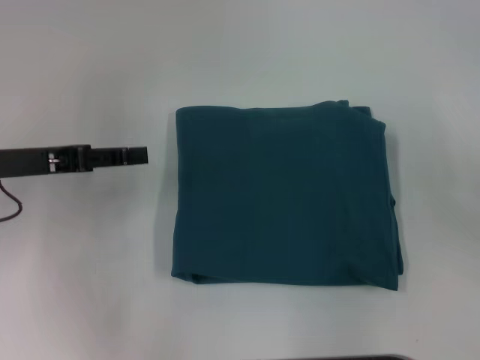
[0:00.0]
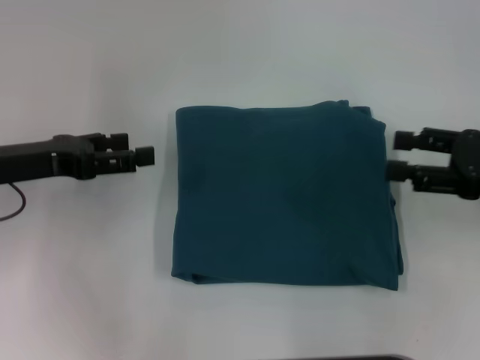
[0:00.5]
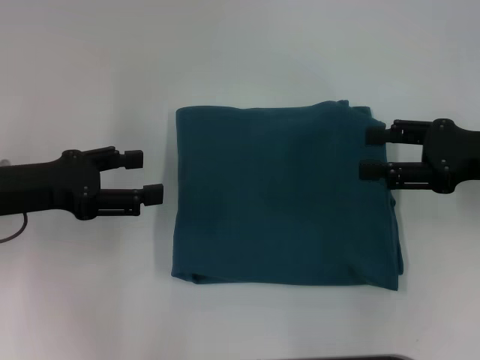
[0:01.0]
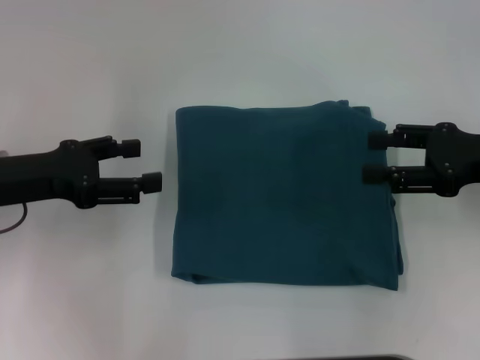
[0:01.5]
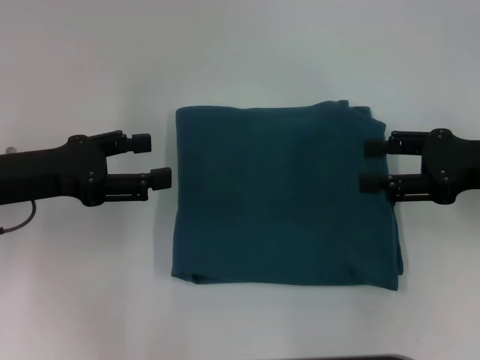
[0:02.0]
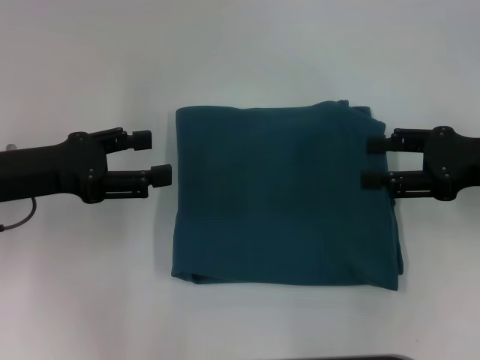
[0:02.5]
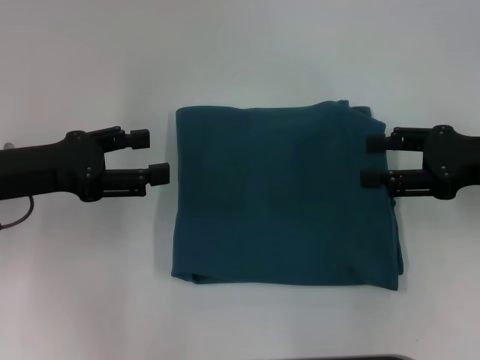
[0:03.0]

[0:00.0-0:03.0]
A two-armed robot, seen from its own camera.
0:00.0 to 0:01.5: The right gripper is displaced to the left and forward by about 10 cm. The left gripper opens its fingers.
0:01.5 to 0:03.0: Both grippers stay about where they are.

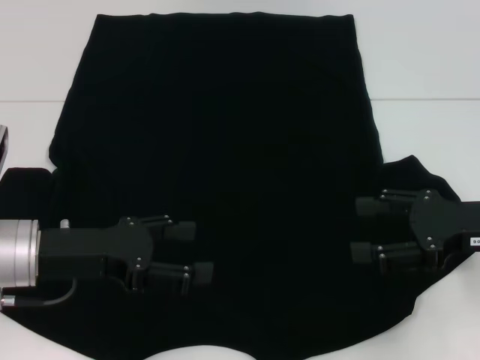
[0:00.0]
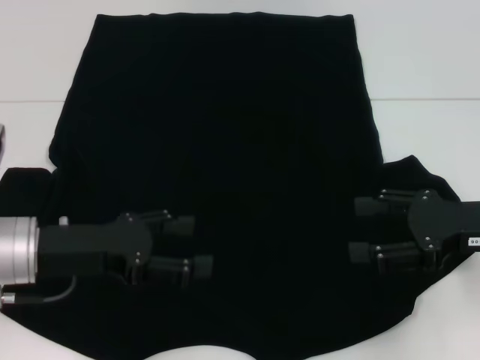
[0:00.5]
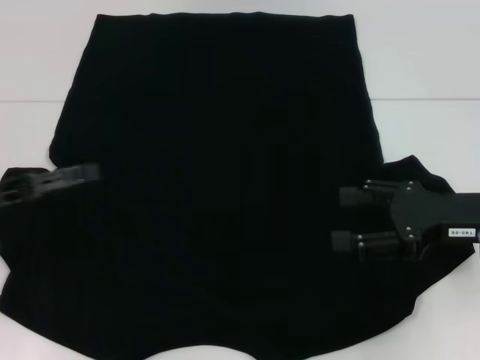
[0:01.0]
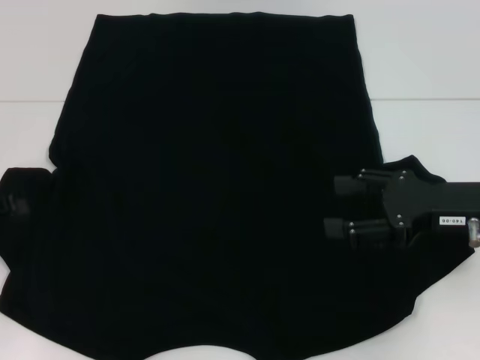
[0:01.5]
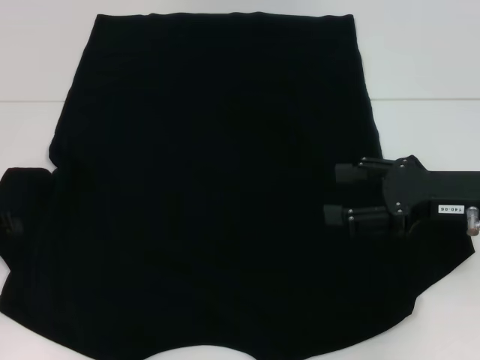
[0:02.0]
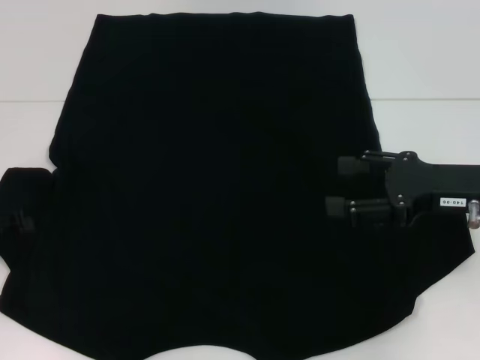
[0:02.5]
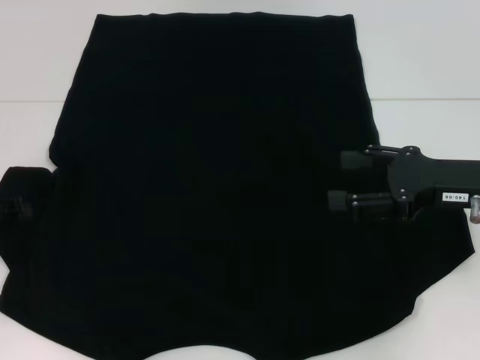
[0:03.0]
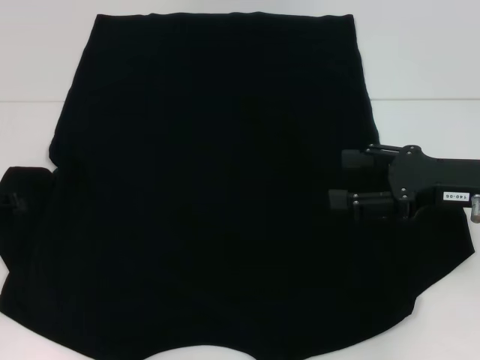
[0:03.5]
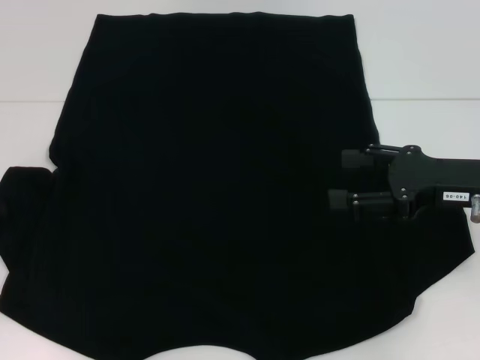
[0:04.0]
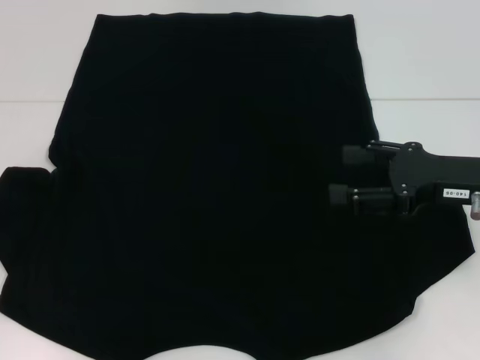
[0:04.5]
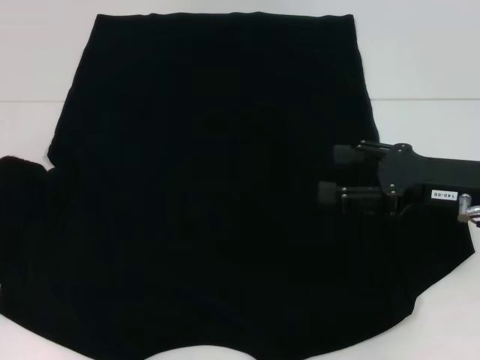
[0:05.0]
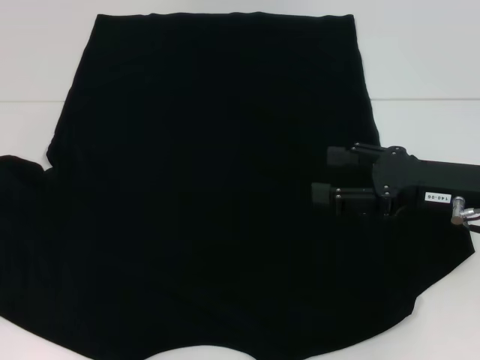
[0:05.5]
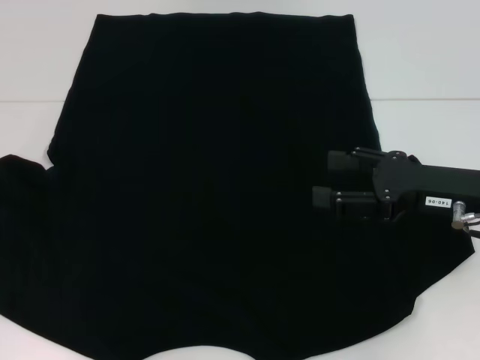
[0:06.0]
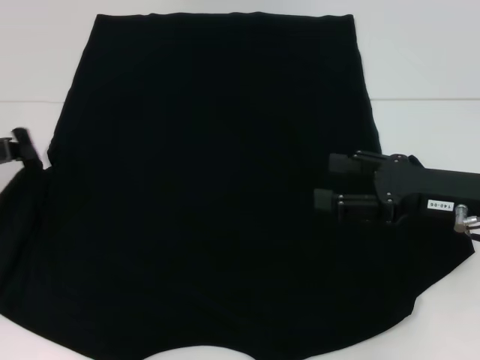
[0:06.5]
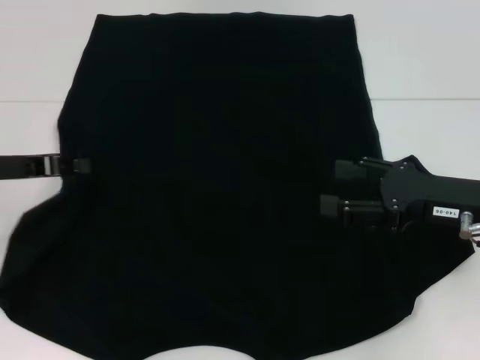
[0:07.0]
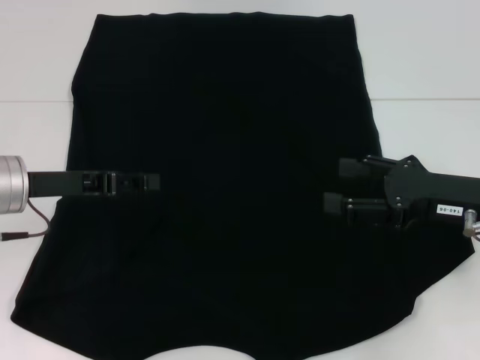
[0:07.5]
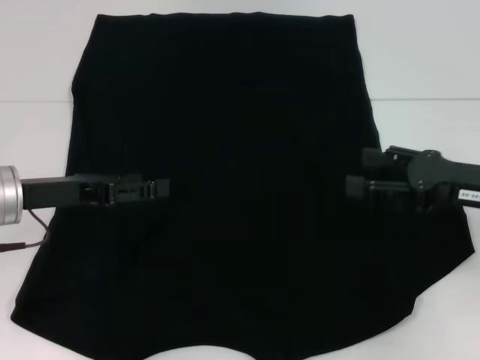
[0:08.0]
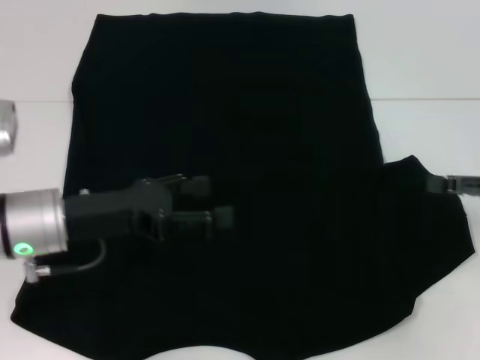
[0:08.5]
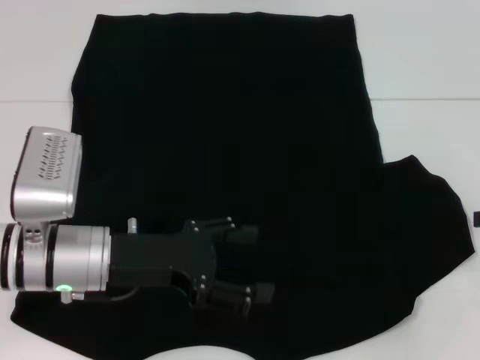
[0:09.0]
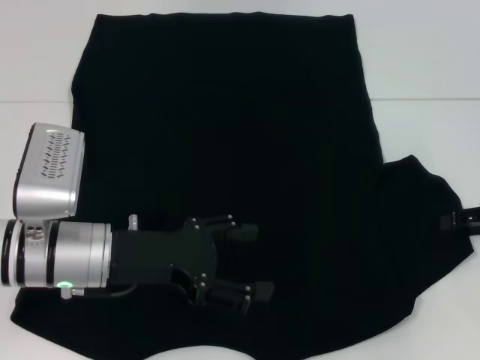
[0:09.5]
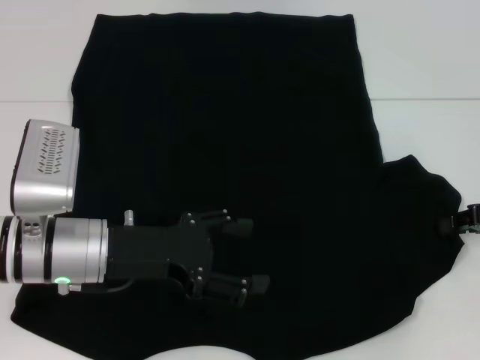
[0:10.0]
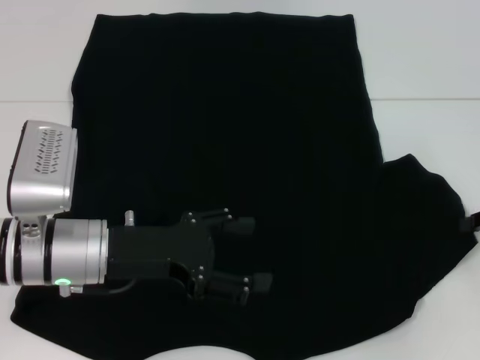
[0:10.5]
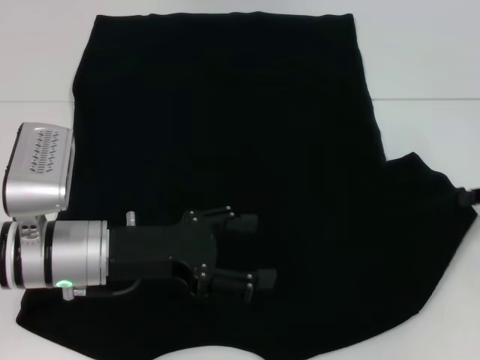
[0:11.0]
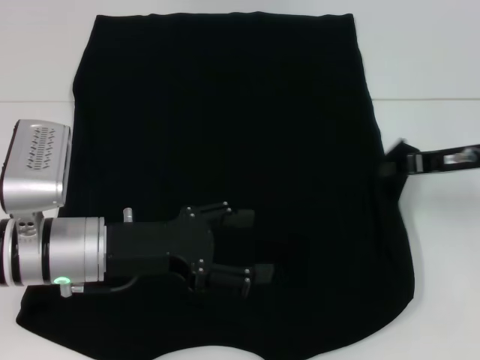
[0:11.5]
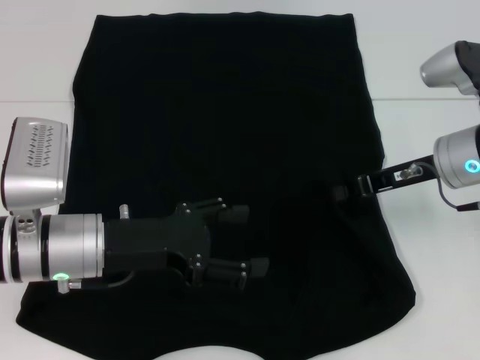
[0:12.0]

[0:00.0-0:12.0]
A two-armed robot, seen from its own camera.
Step, 0:00.0 to 0:07.5: Fold the bottom left sleeve with your left hand.
0:00.0 to 0:02.0: The left gripper goes roughly 15 cm to the left.
0:02.0 to 0:04.0: The grippers make only small movements.
0:04.0 to 0:06.0: The left gripper closes its fingers.
0:06.0 to 0:08.0: The left gripper is displaced to the right by some 10 cm, and opens up.
0:08.0 to 0:10.0: The two grippers go about 5 cm to the right. The right gripper closes.
0:10.0 to 0:12.0: The right gripper is displaced to the left by about 10 cm.

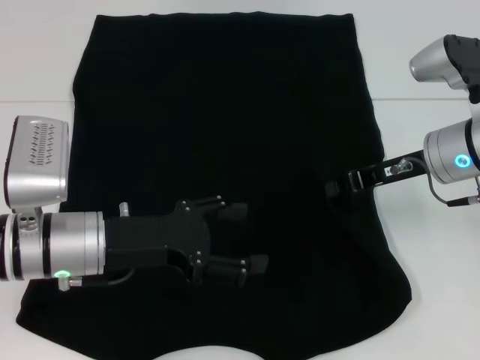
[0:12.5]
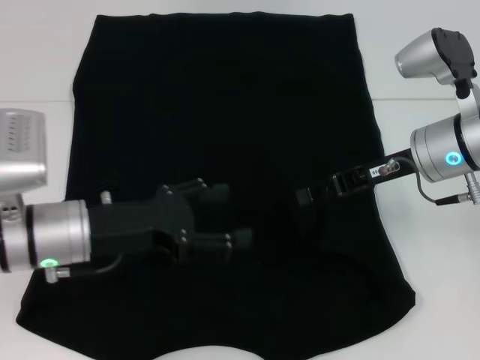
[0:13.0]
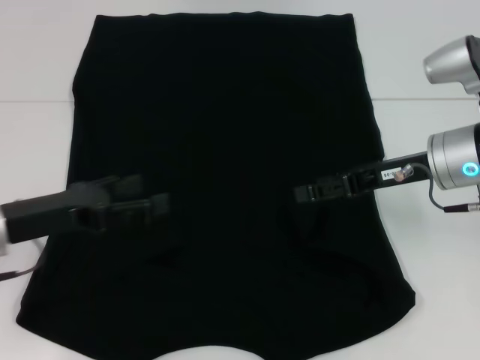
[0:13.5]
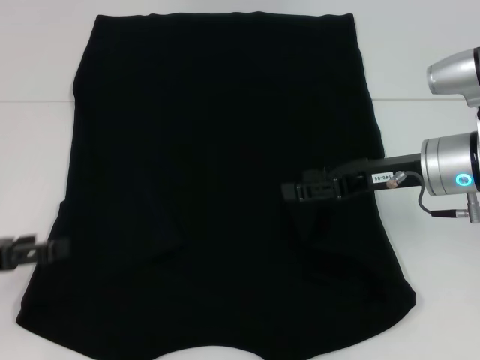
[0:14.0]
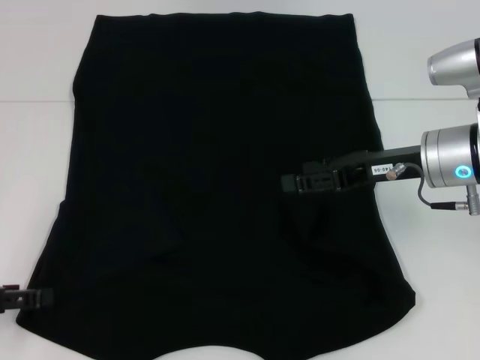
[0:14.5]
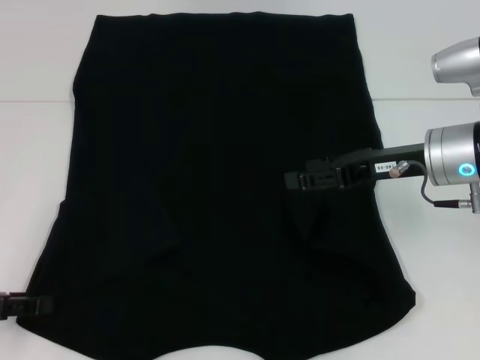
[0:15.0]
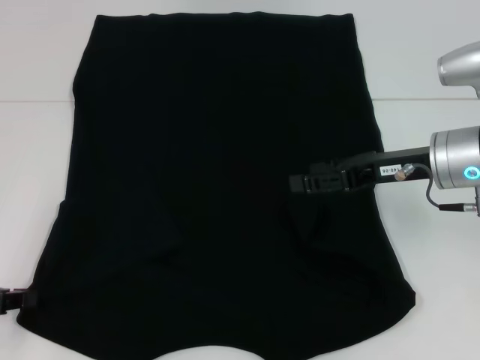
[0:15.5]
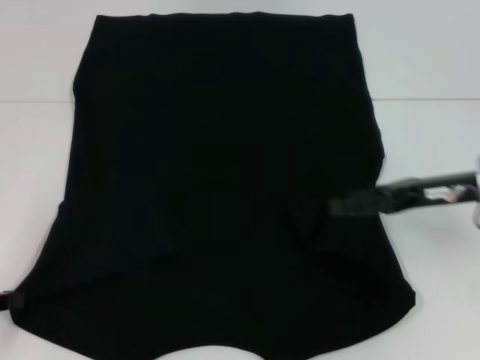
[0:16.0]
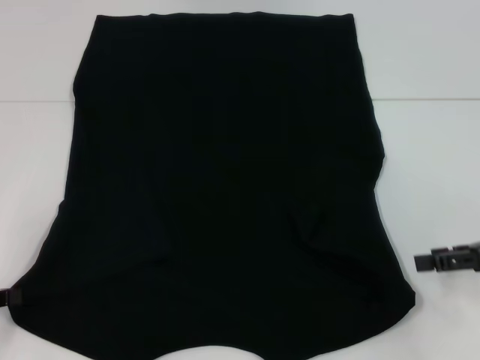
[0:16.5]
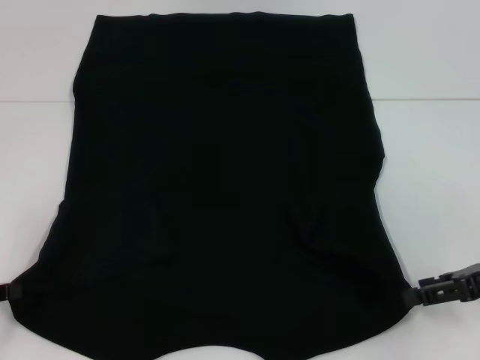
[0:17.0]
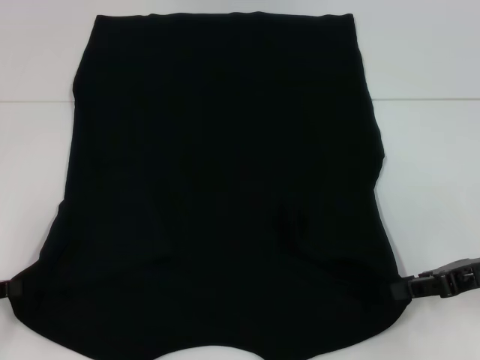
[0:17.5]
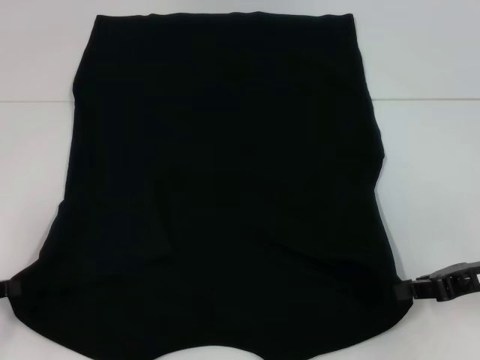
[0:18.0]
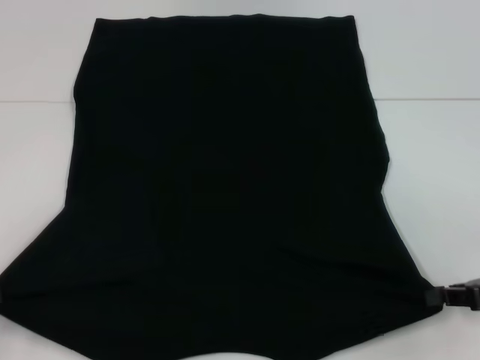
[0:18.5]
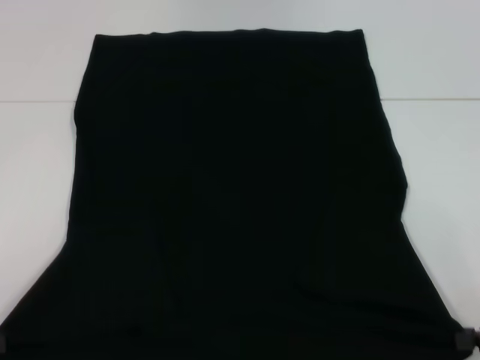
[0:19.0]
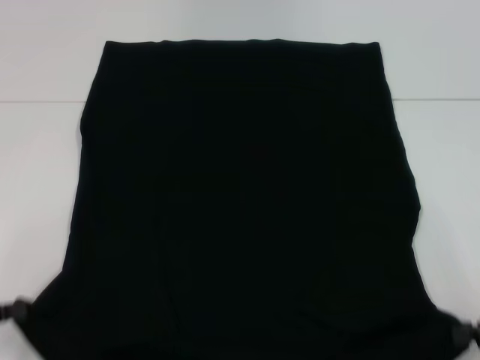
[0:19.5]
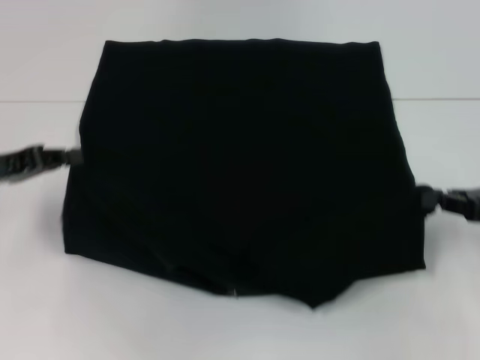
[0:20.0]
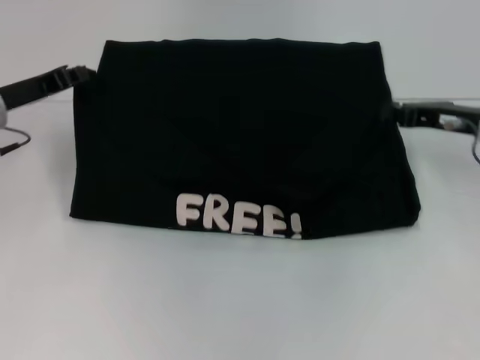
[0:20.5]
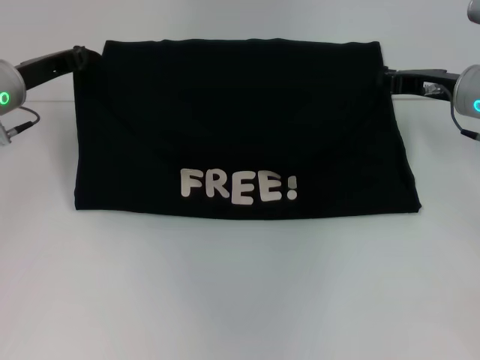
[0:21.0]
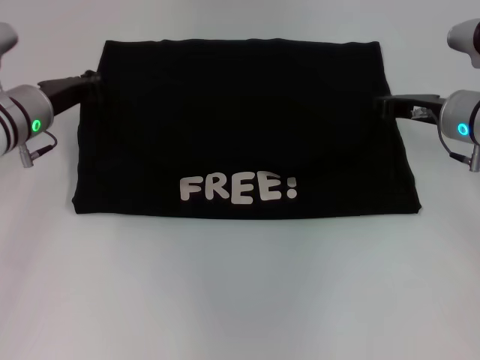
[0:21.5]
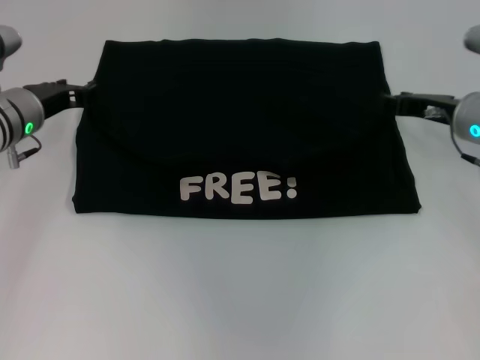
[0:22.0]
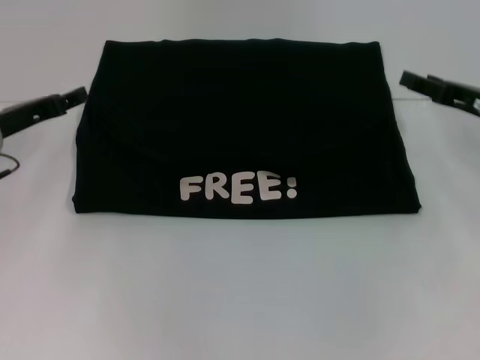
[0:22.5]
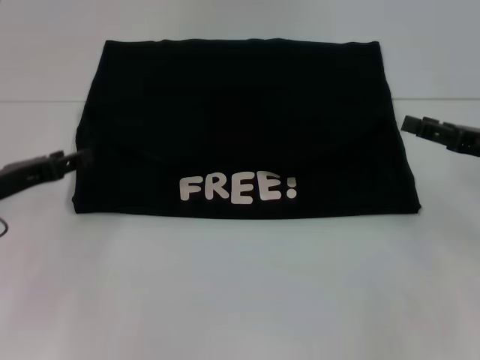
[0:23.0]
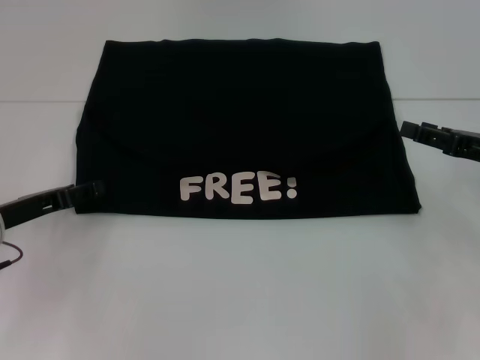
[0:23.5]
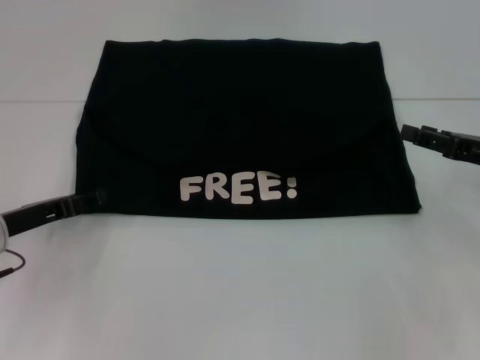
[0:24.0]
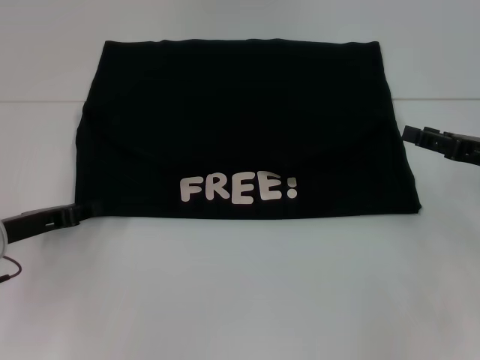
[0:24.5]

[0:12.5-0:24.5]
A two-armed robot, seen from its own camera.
Step, 0:13.0 to 0:16.0: Grab the bottom left corner with your left hand.
Step, 0:16.5 to 0:18.0: Grab the bottom right corner with your right hand.
Step, 0:18.5 to 0:22.0: Fold the clothes with your left hand.
Step, 0:18.5 to 0:22.0: Fold the clothes with your right hand.
0:12.5 to 0:14.5: The right gripper opens. Meanwhile the left gripper goes approximately 15 cm to the left.
0:14.5 to 0:16.5: The left gripper closes its fingers; the right gripper goes some 15 cm to the right and backward.
0:16.5 to 0:18.5: The right gripper closes up.
0:18.5 to 0:20.5: The left gripper shifts approximately 20 cm forward and to the right; the right gripper goes about 15 cm forward and to the left.
0:20.5 to 0:22.5: The left gripper opens. Meanwhile the right gripper opens.
0:22.5 to 0:24.5: The right gripper ends up roughly 5 cm from where it was. Meanwhile the left gripper heads backward and downward, covering approximately 10 cm.
